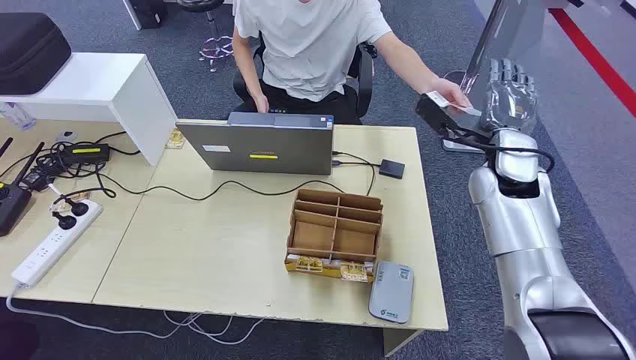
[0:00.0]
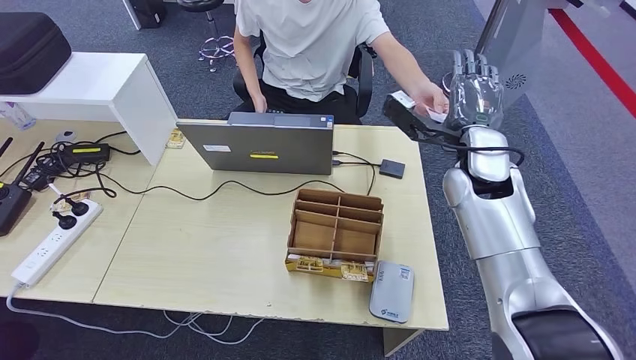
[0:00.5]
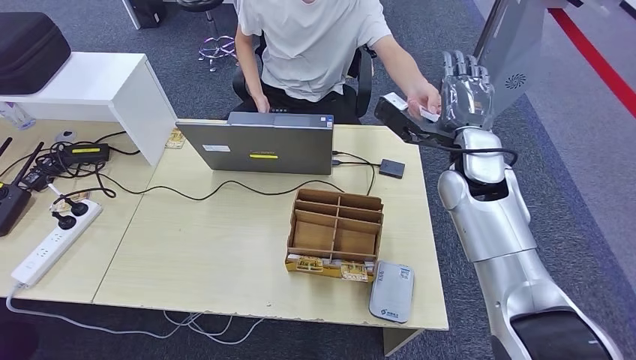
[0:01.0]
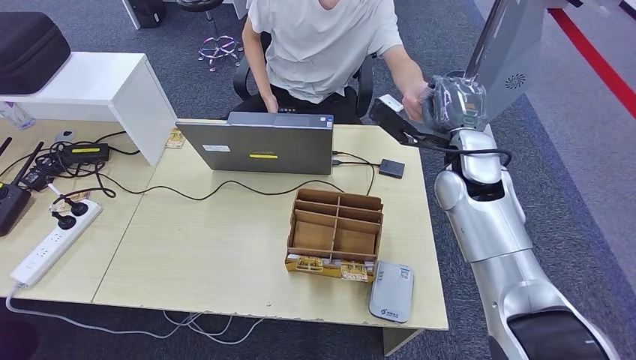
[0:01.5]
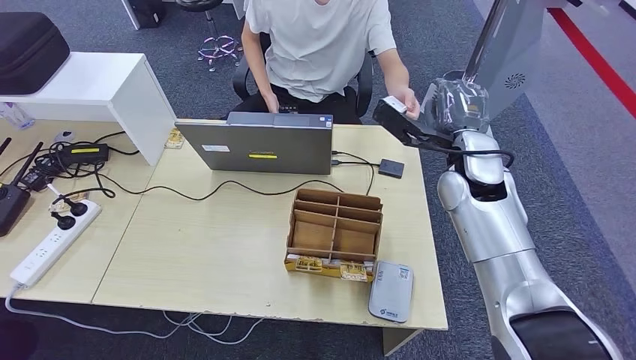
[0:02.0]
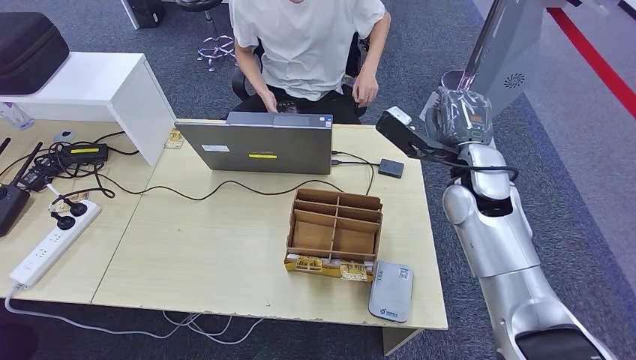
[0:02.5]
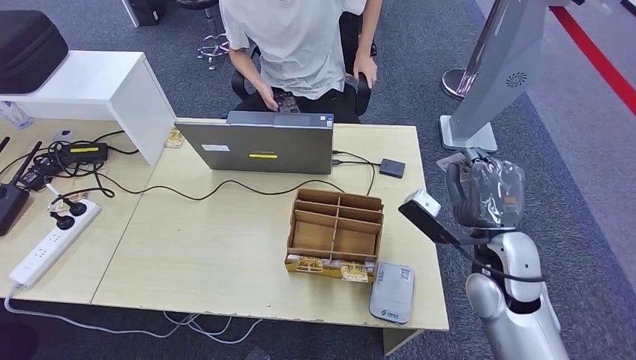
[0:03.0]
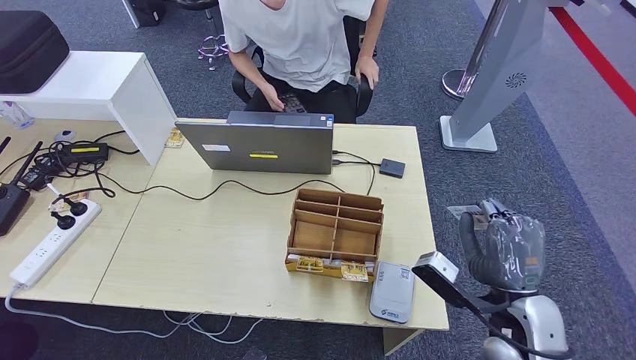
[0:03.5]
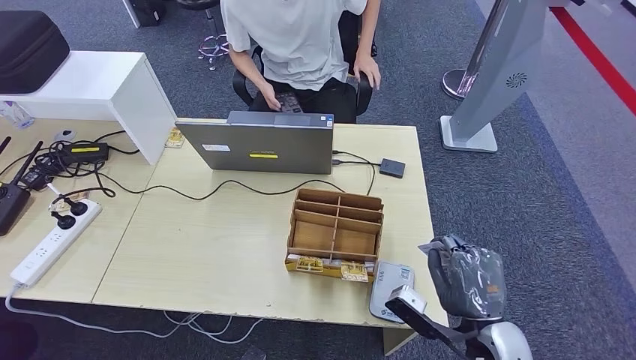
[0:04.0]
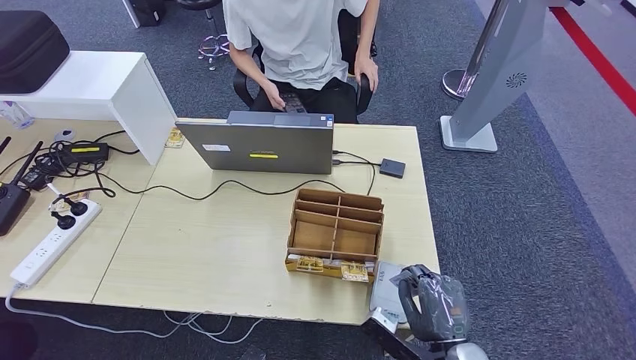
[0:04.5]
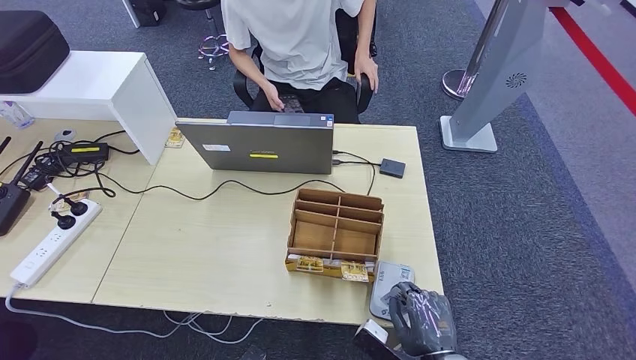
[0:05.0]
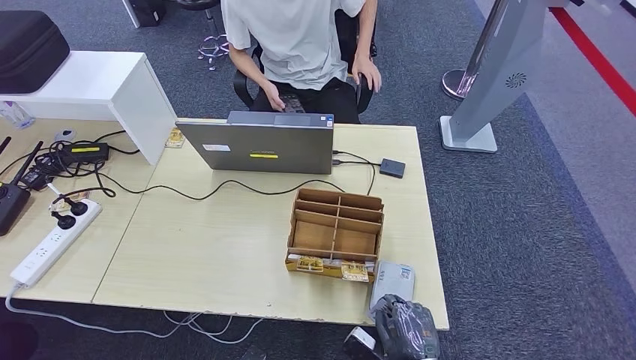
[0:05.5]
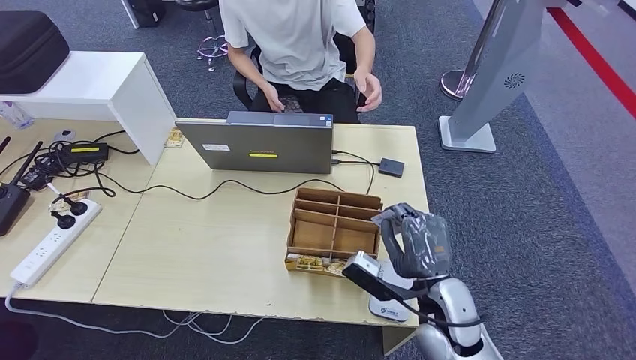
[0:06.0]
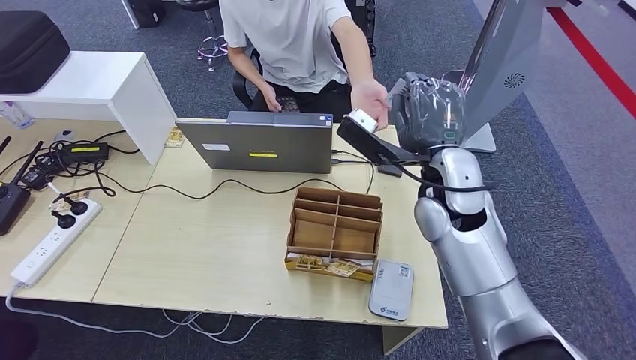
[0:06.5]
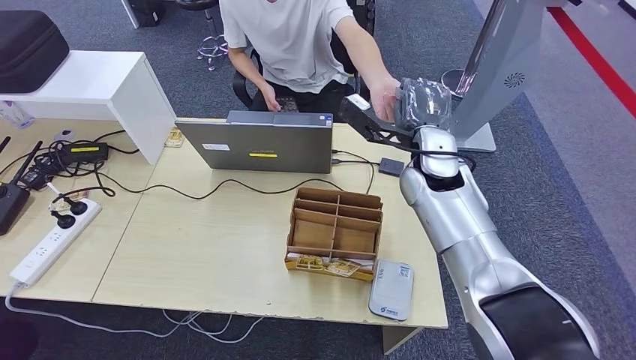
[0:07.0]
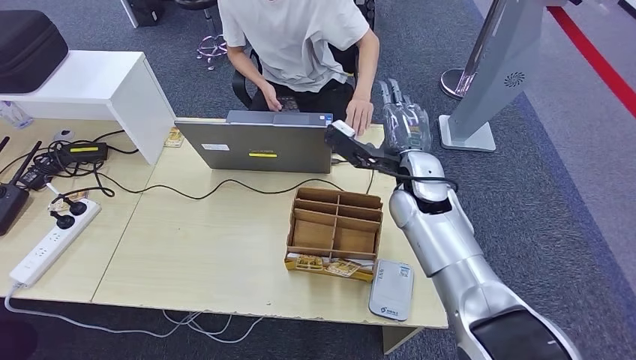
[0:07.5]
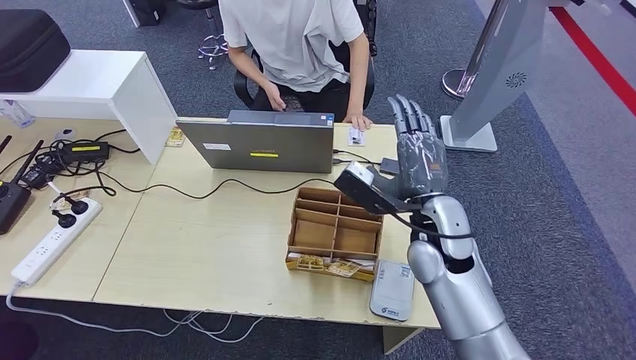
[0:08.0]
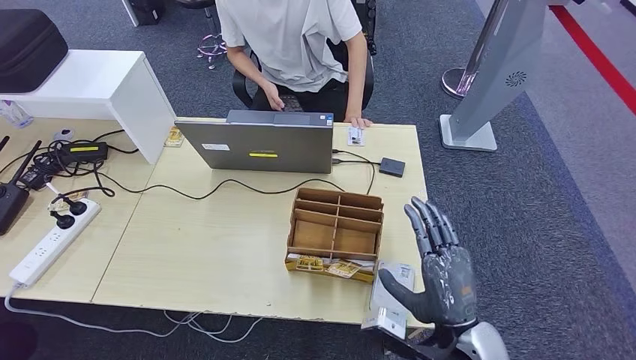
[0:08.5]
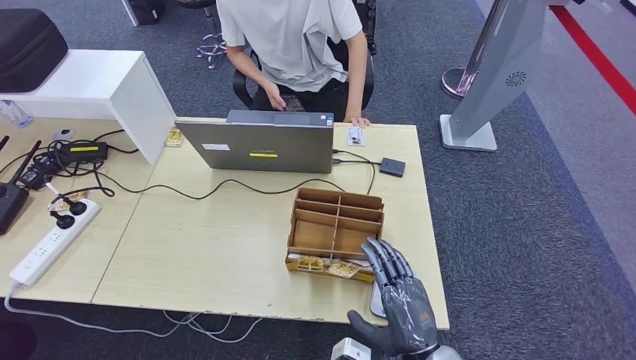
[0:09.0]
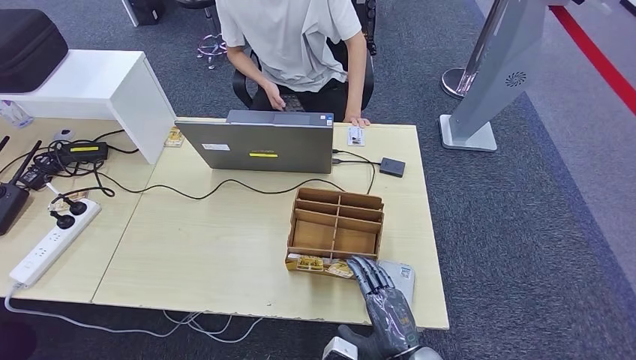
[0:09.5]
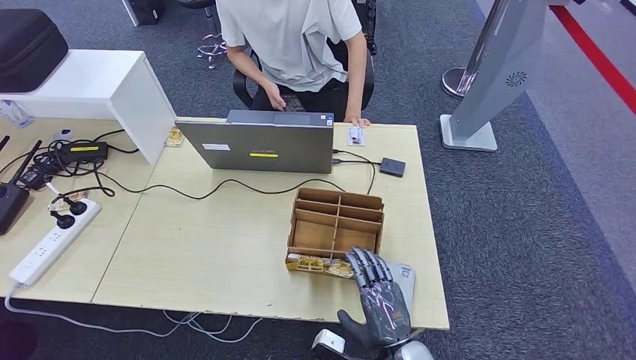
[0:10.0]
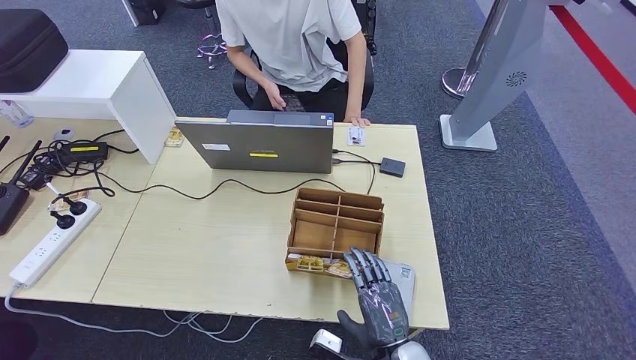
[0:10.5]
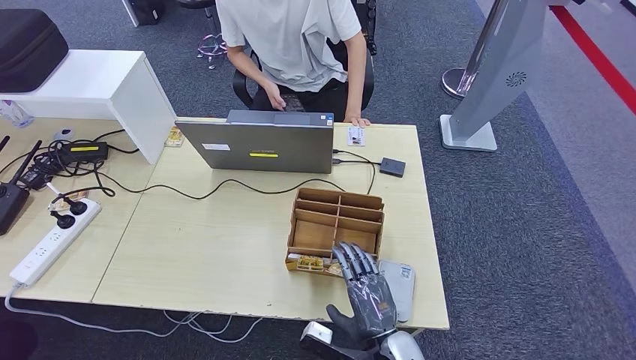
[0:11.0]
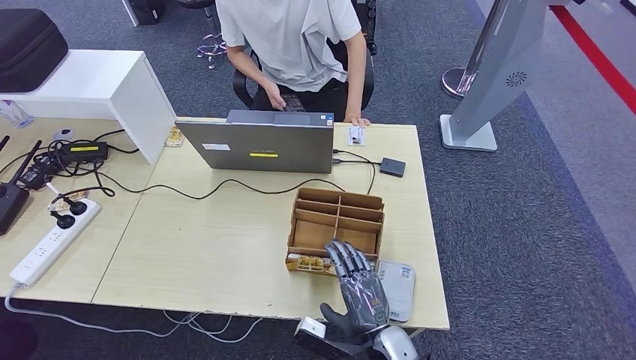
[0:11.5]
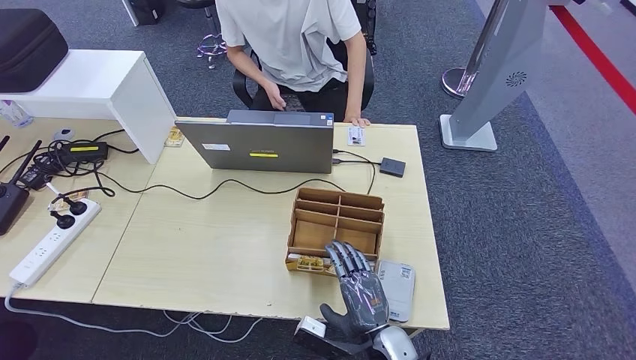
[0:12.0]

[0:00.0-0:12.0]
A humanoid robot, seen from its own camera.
Step, 0:00.0 to 0:02.5: Take the ID card from the person's hand.
Step, 0:03.0 to 0:06.5: Place the ID card on the card reader.
Step, 0:07.0 to 0:08.0: Hand the ID card to the person.
0:02.0 to 0:04.0: The right hand shifts some 30 cm backward and downward.
0:04.0 to 0:06.0: The right hand moves to the left and forward, roughly 10 cm.
0:06.0 to 0:08.0: The right hand heads forward and upward, covering approximately 15 cm.
0:08.0 to 0:10.0: The right hand travels backward and downward by roughly 25 cm.
0:10.0 to 0:12.0: The hands stay close to where they were, moving slightly.

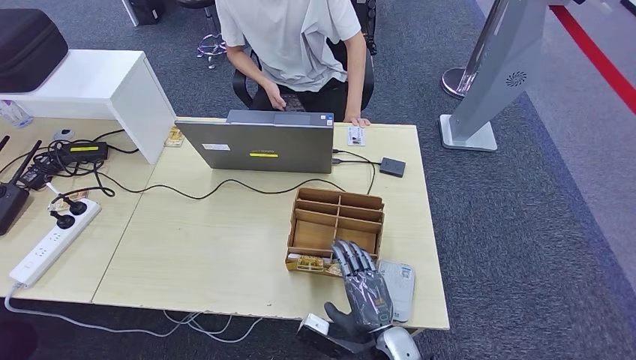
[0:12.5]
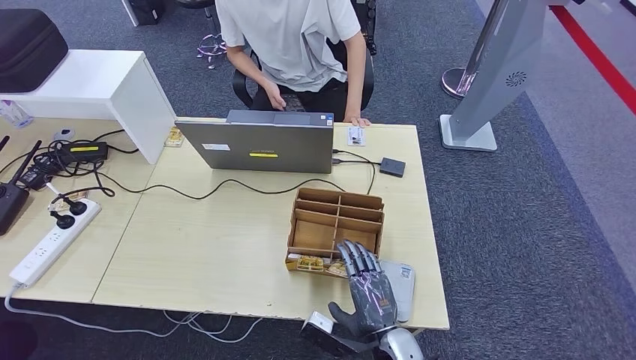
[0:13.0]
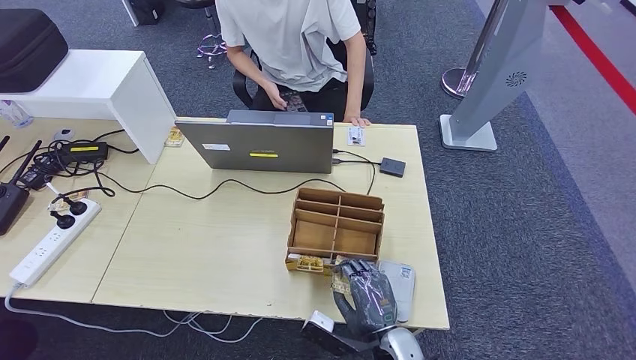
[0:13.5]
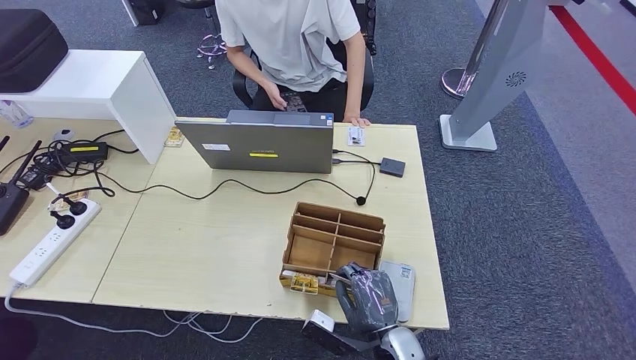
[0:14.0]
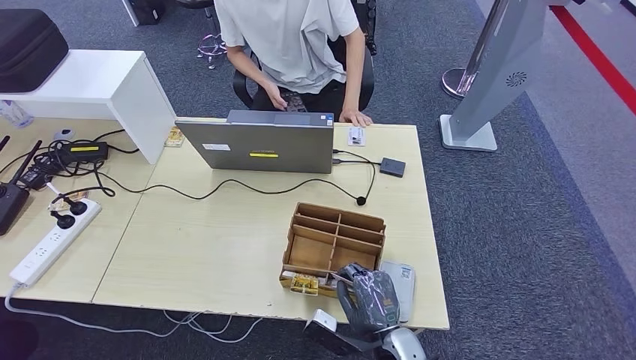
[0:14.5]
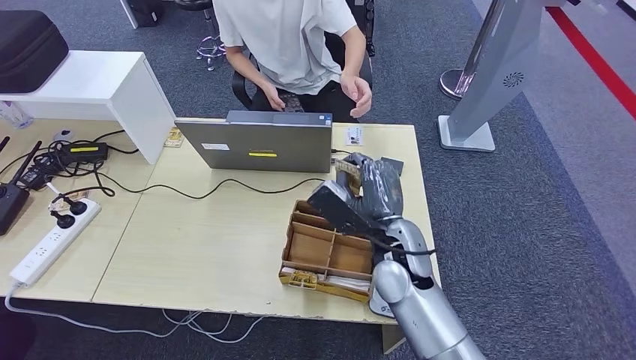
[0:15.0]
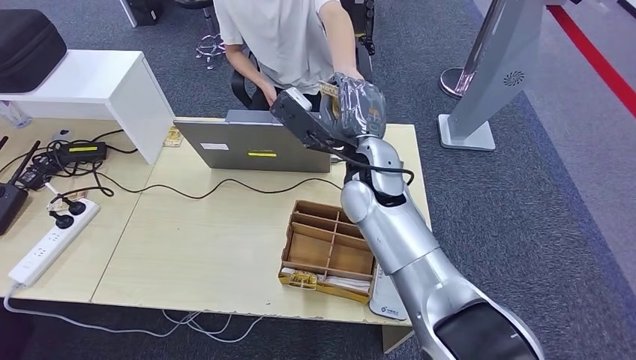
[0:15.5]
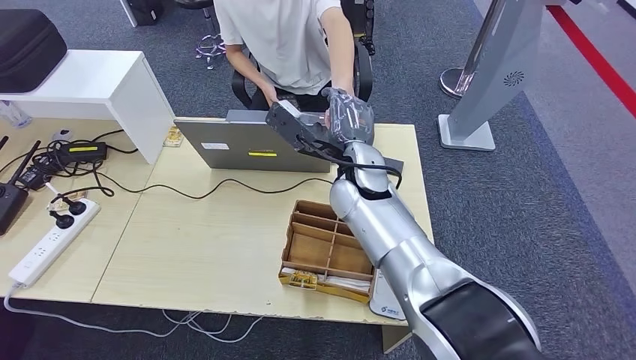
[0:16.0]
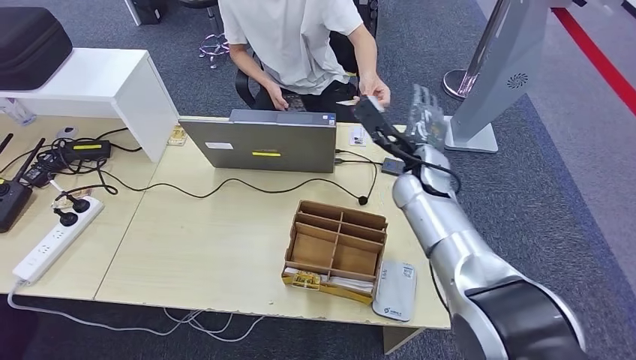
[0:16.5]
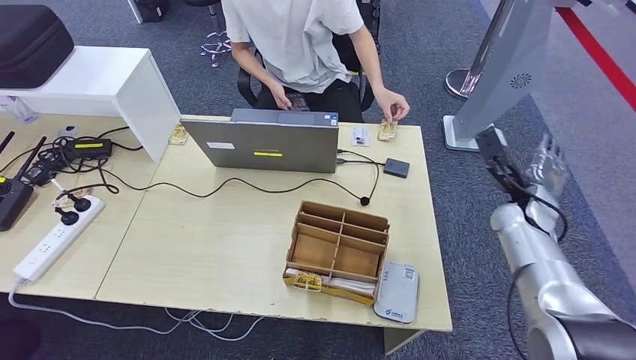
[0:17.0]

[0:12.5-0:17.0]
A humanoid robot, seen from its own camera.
Step, 0:12.5 to 0:15.0: Pick up the room key from the key card box.
Step, 0:15.5 to 0:17.0: Hand the room key to the person.
0:12.5 to 0:14.5: The hands stay close to where they were, moving slightly.
